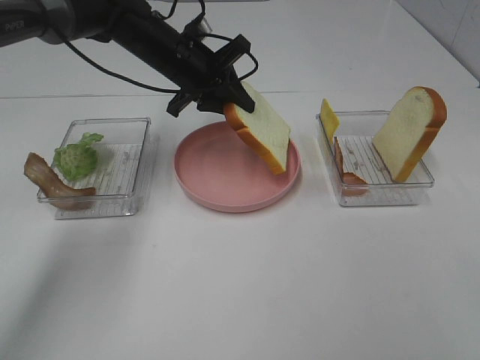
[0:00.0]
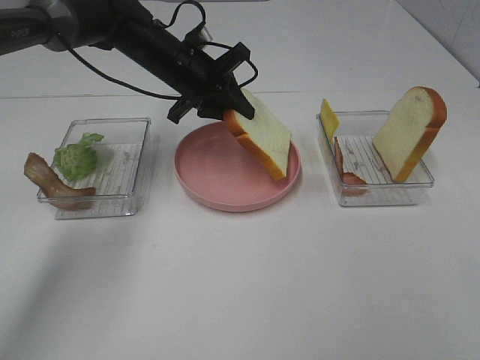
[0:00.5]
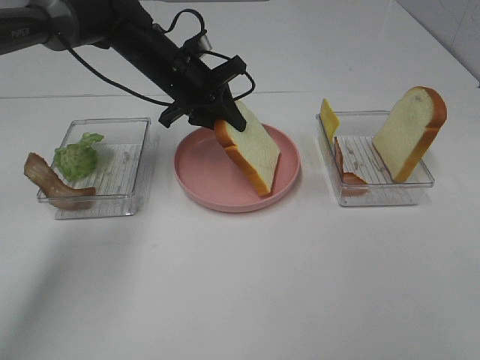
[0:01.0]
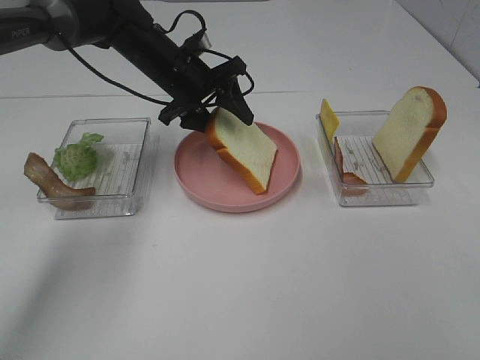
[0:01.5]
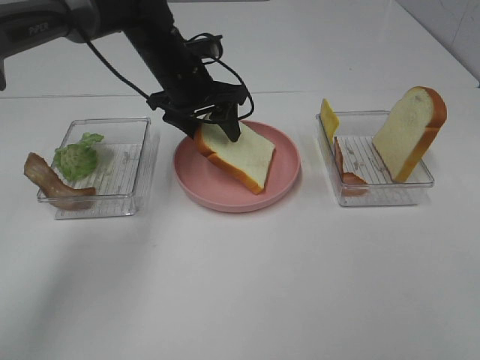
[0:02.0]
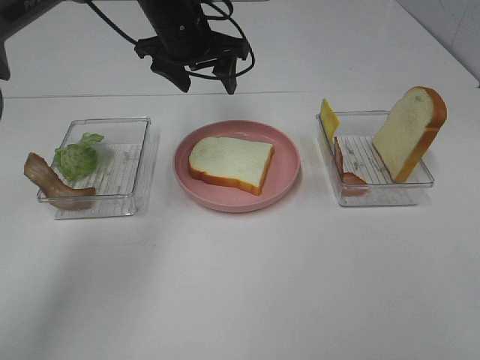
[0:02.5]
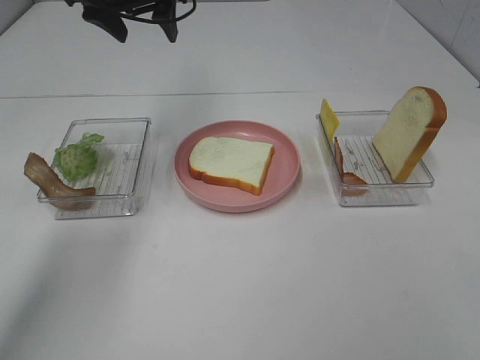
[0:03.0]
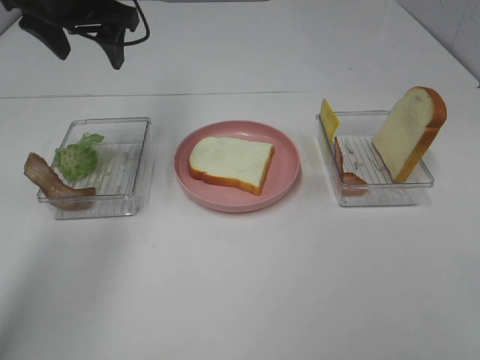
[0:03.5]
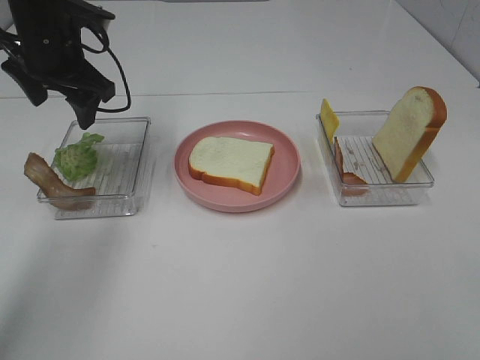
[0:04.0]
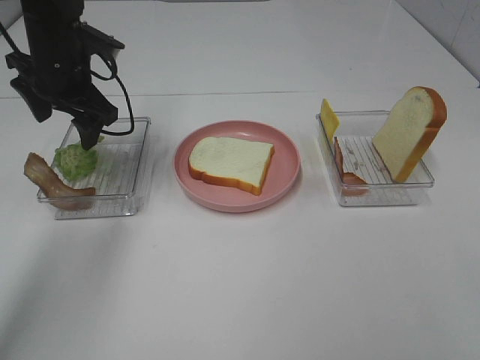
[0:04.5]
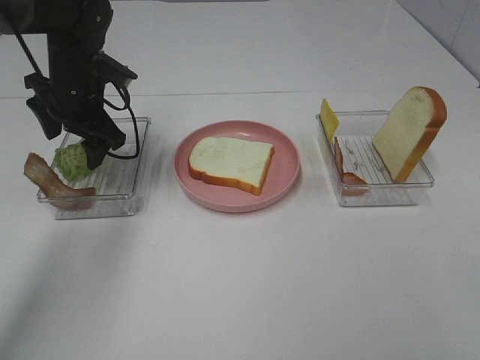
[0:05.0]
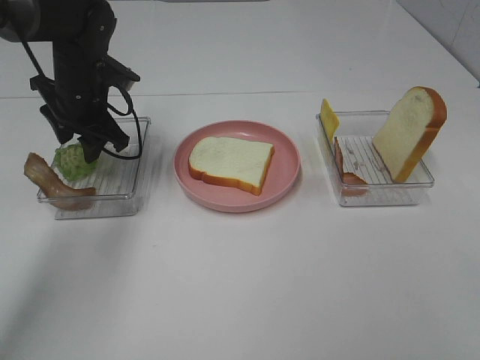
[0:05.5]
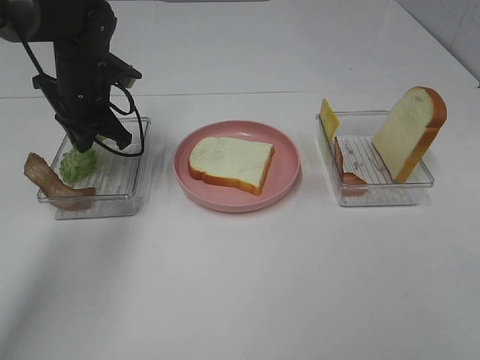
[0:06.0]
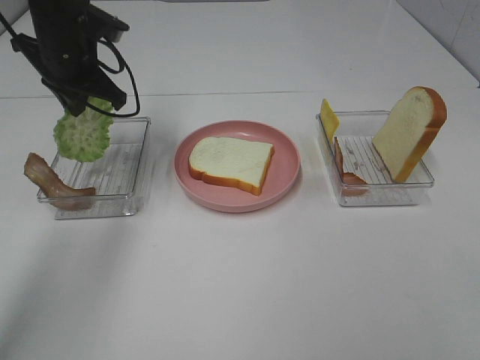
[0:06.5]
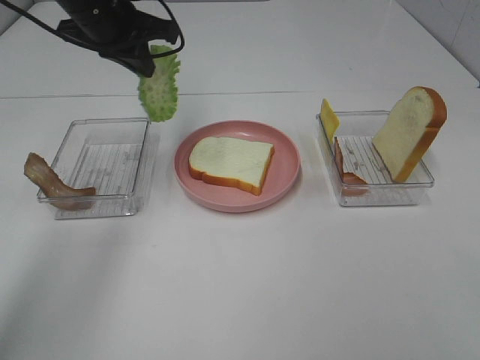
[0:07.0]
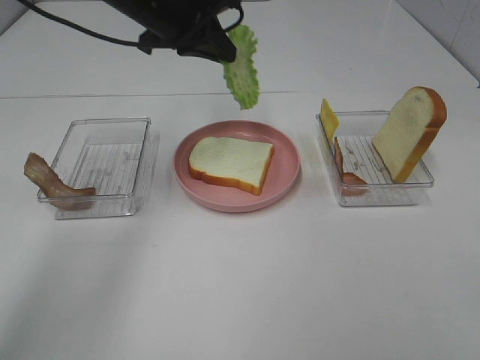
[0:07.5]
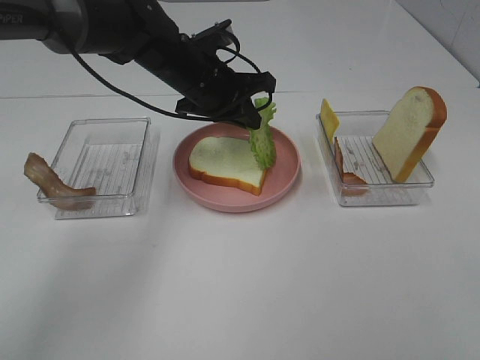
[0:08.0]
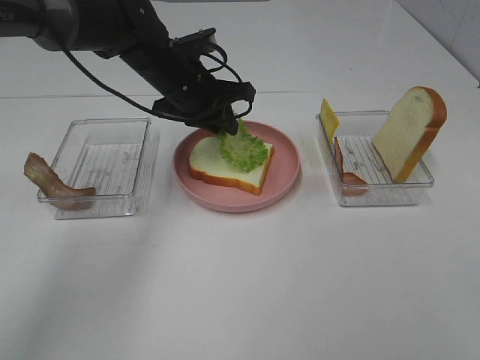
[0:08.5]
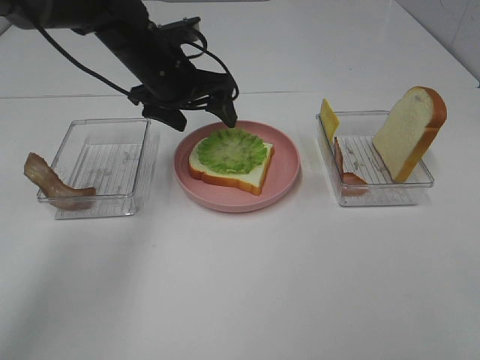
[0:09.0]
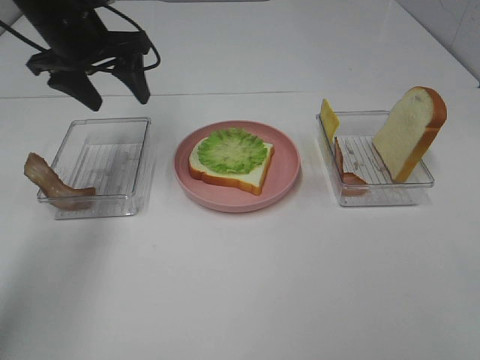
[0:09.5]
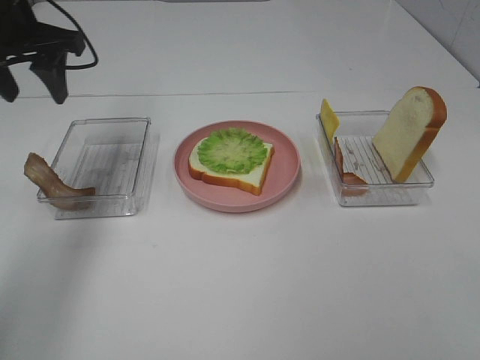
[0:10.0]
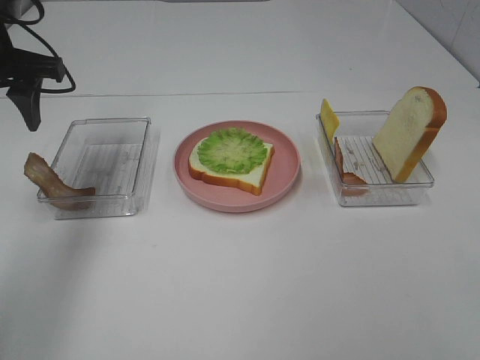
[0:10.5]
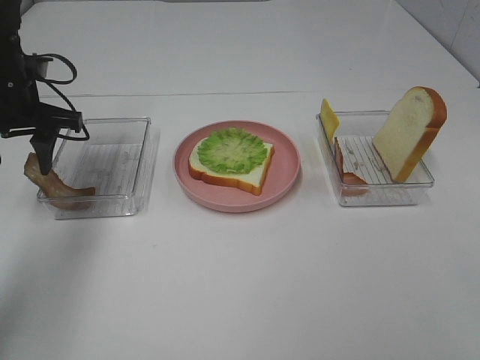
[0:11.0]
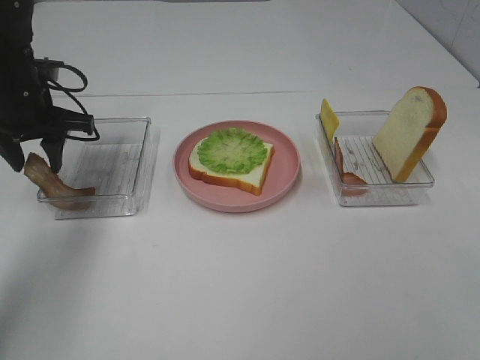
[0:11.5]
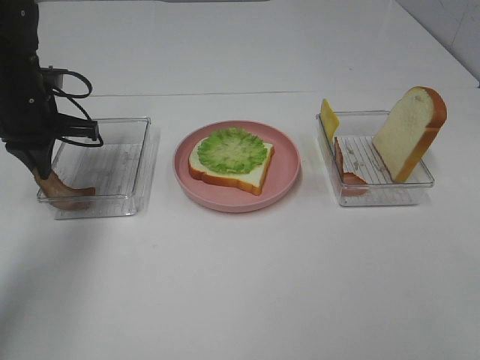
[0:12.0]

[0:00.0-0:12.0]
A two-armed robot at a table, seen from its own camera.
Task of the whole recording: Make sandwiches.
Step, 0.0 to 2.0 s: Left hand:place the bread slice on the plate.
Step, 2.5 to 6.0 s: Left hand:grab the lettuce slice.
Step, 6.5 to 8.5 s: Left hand:place the lettuce slice on the bread slice.
0.0 to 2.0 s: The left gripper opens its fingers.
2.0 to 4.0 s: The left gripper heads to the left and upward, covering approximately 15 cm.
4.0 to 6.0 s: The left gripper goes approximately 10 cm downward, and closes up.
6.0 to 8.0 s: The left gripper goes about 15 cm to the right.
8.0 to 10.0 s: The left gripper is displaced to the left and upward by about 20 cm, and opens up.
10.0 to 12.0 s: The left gripper shifts approximately 10 cm downward, and closes its fingers.

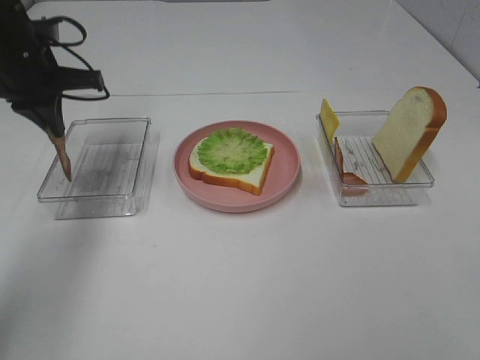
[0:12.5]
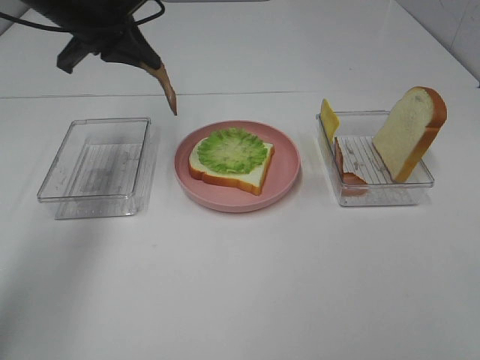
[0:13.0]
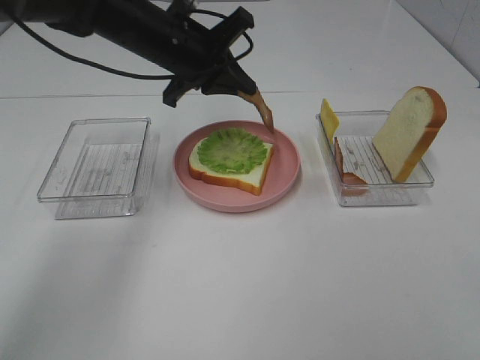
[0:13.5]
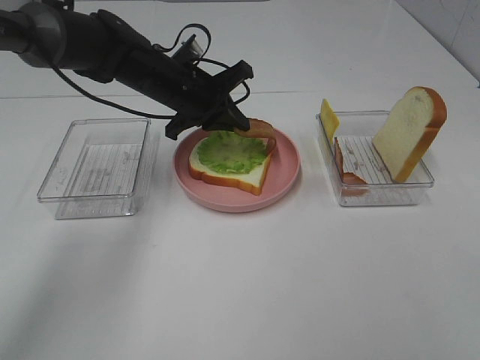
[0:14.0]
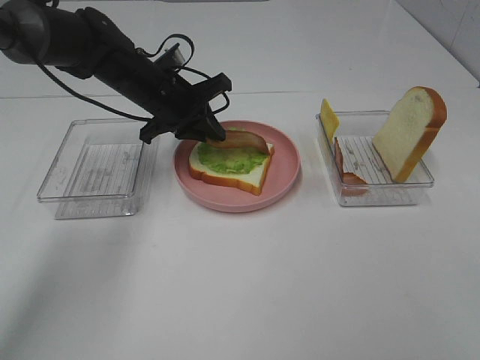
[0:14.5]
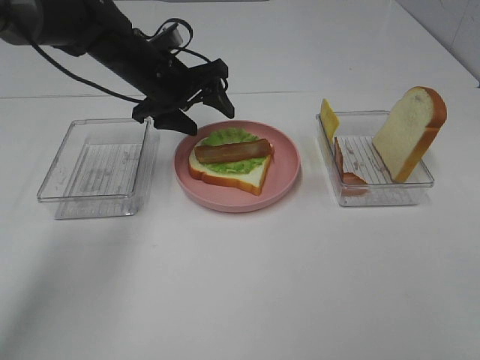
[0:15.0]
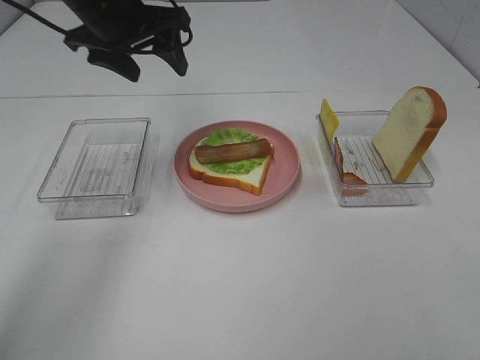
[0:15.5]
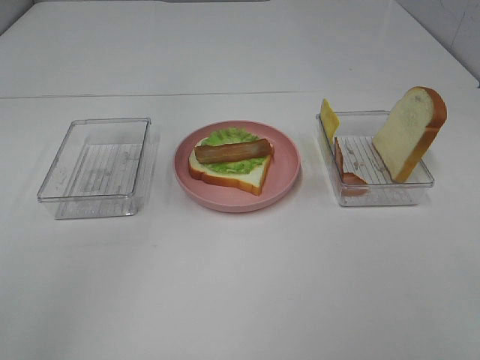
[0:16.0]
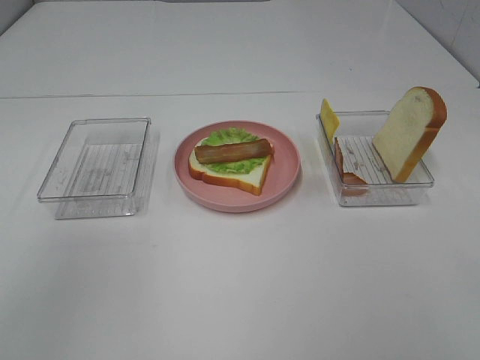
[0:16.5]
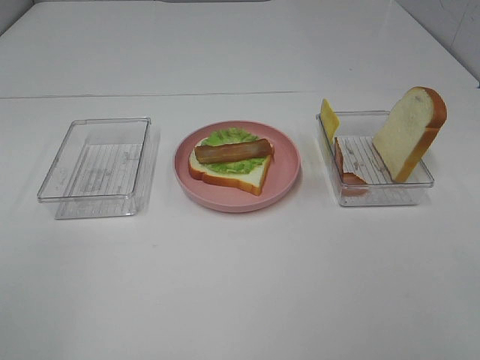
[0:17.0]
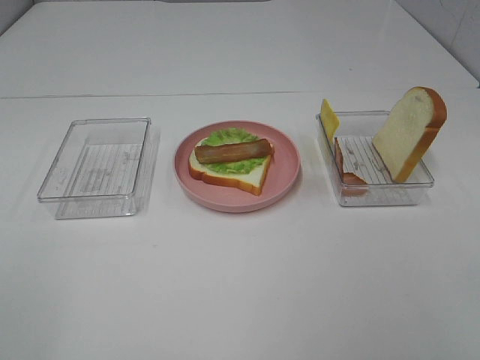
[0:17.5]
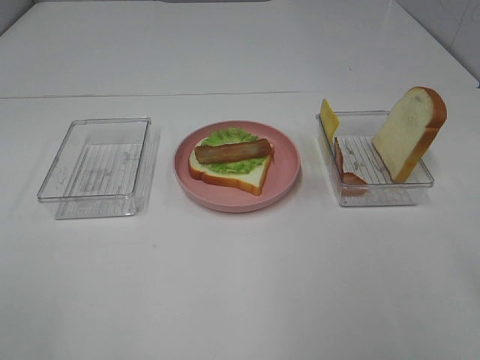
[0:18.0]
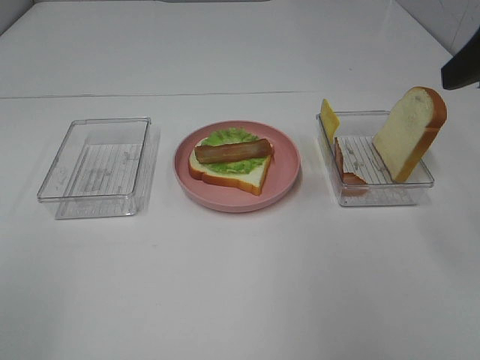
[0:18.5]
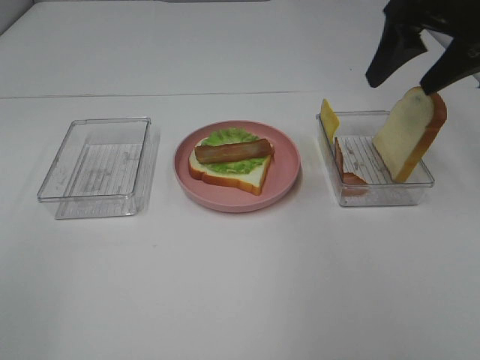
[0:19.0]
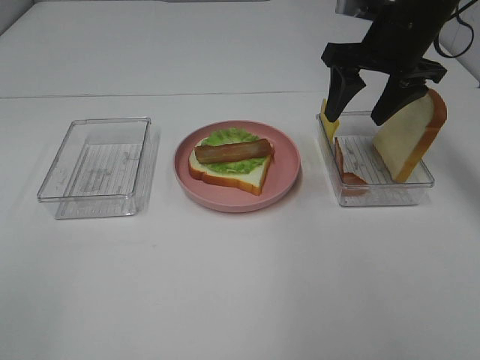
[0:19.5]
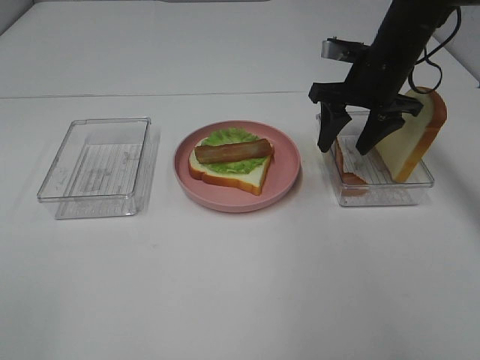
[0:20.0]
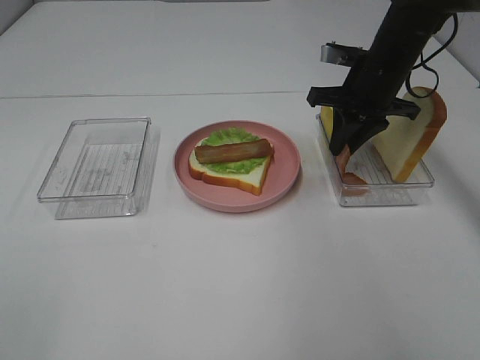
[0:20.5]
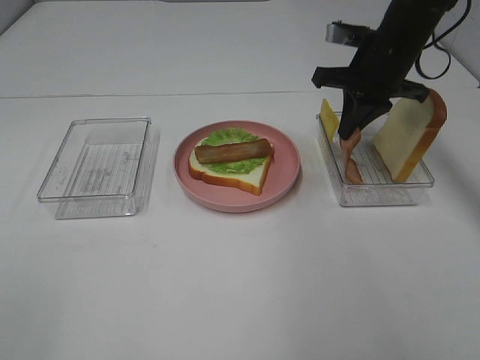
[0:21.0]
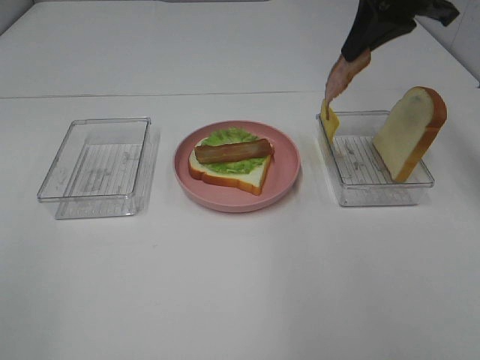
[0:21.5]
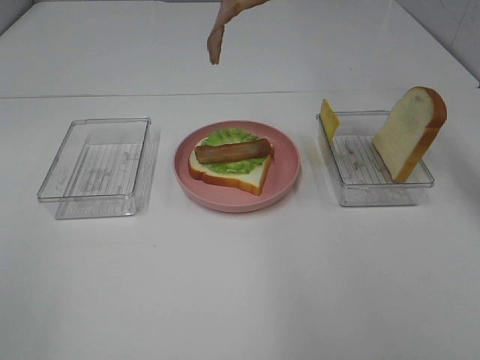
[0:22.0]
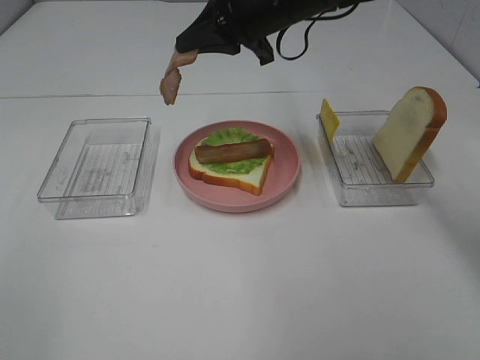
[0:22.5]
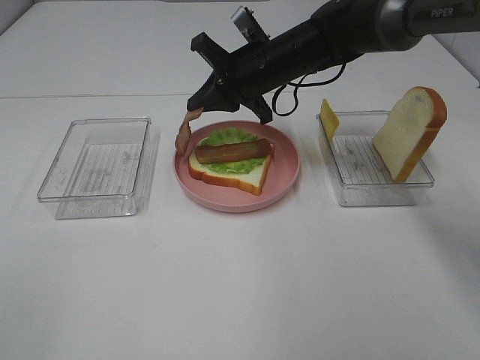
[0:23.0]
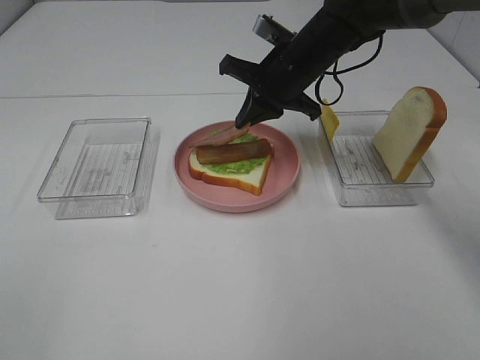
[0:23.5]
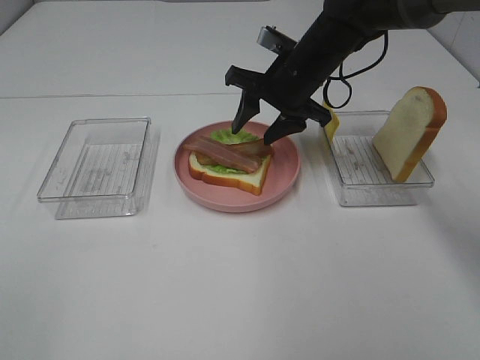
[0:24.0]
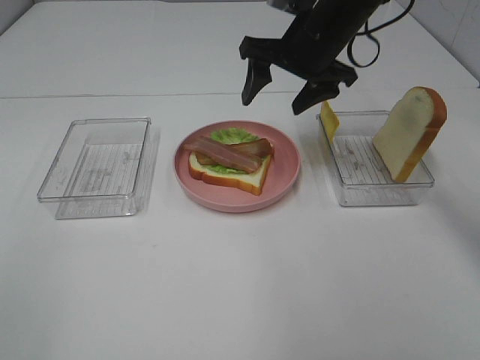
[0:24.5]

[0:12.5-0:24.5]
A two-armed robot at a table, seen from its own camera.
Task of the whole recording: Make sandwiches.
Step, 15.5 to 21.0 s: Right hand:grab the bacon.
Step, 21.5 to 24.0 s: Right hand:place bacon on bacon.
12.5 to 14.5 s: The left gripper is displaced to the right and downward by about 15 cm.
14.5 to 16.5 s: The left gripper moves upward, backward and to the left, about 40 cm, and opens its fingers.
16.5 to 18.5 s: The right gripper is displaced forward by some 25 cm.
18.5 to 20.5 s: The right gripper heads forward and downward, covering roughly 25 cm, and closes its fingers.
20.5 to 22.5 s: The right gripper moves to the left and upward, about 15 cm.
22.5 to 24.5 s: The right gripper travels to the right by approximately 5 cm, and opens its fingers.

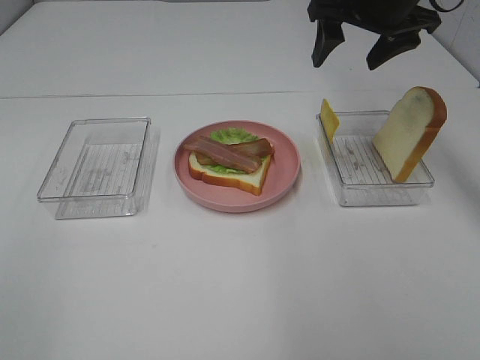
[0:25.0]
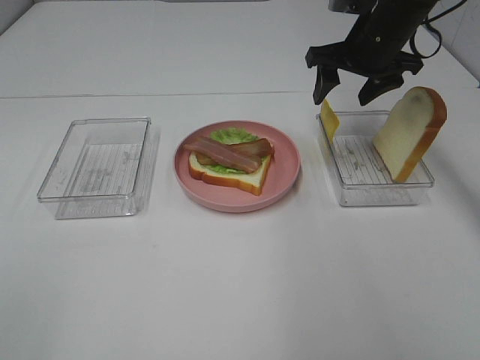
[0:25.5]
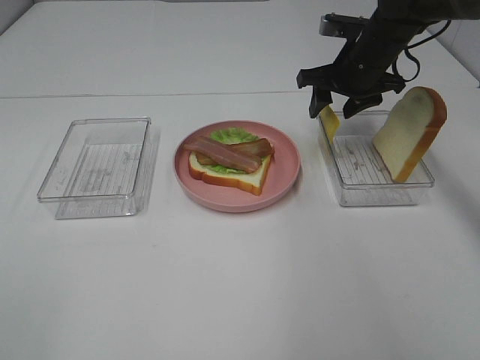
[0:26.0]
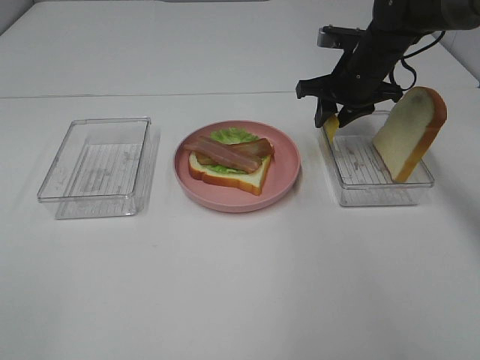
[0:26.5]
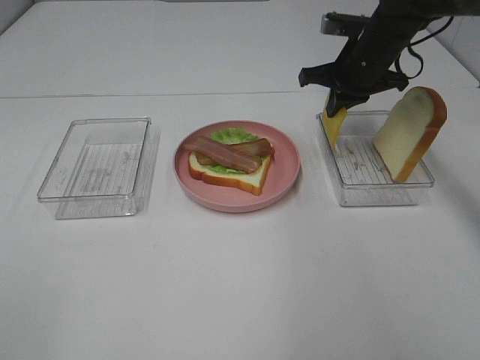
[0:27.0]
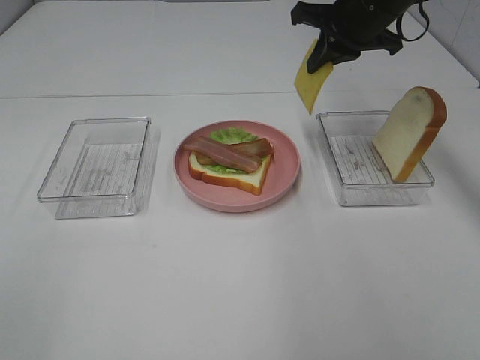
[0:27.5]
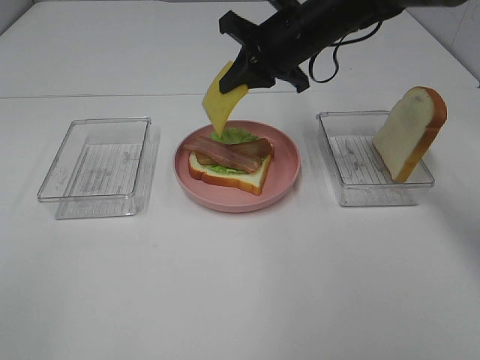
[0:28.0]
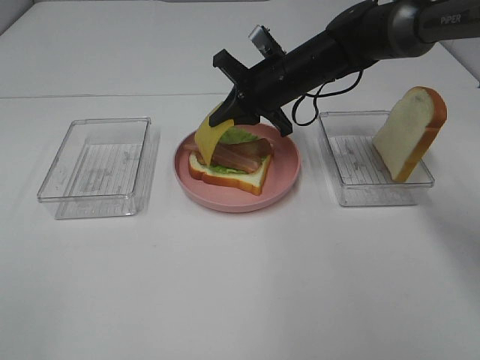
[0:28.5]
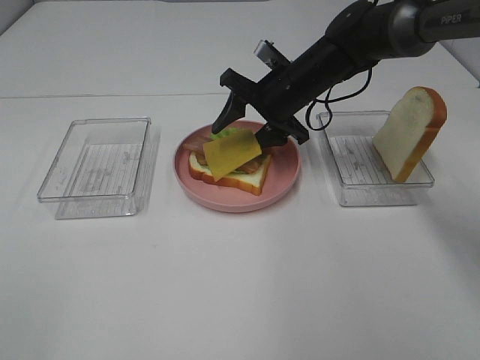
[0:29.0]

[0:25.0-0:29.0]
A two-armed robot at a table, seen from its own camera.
Task of the whole recording: Make sandwiches.
Step, 25.0 to 26.5 s: Right hand:grab the cheese slice.
25.0 to 27.0 s: The right gripper travels downward by roughly 10 cm, and closes.
27.0 to 29.0 s: The right gripper is displaced to the left by about 10 cm, and opens up.
